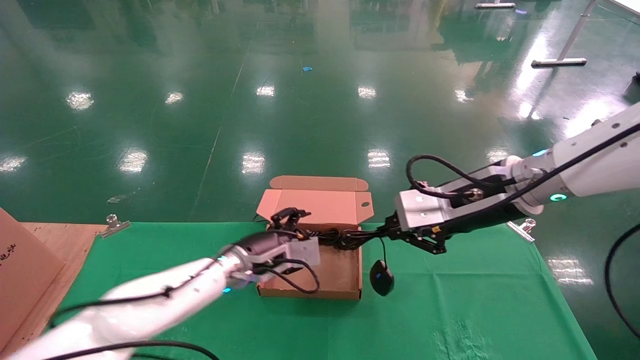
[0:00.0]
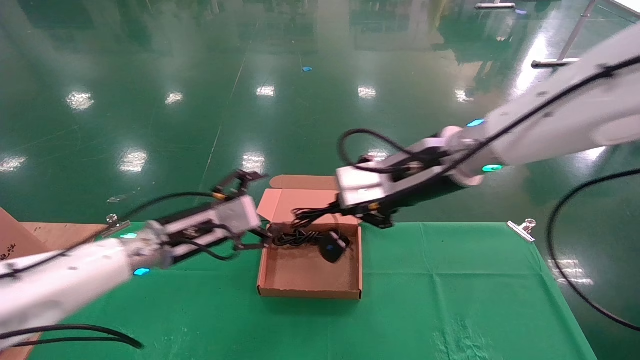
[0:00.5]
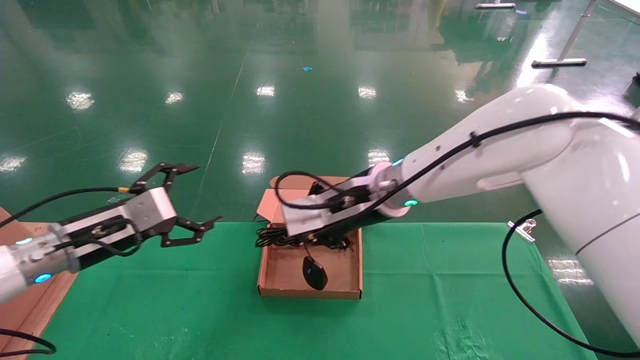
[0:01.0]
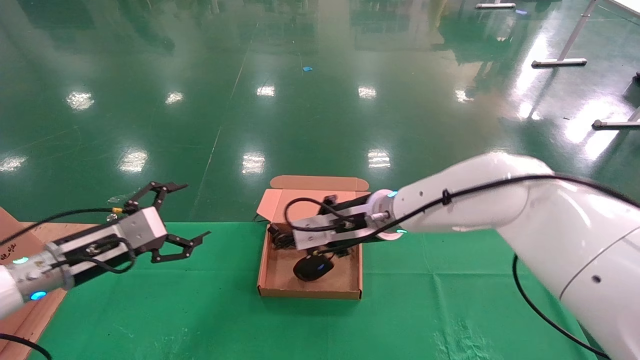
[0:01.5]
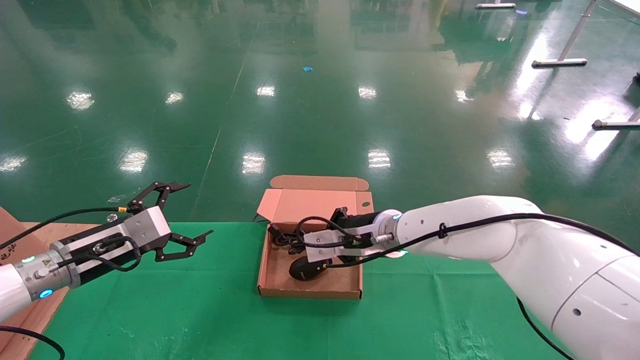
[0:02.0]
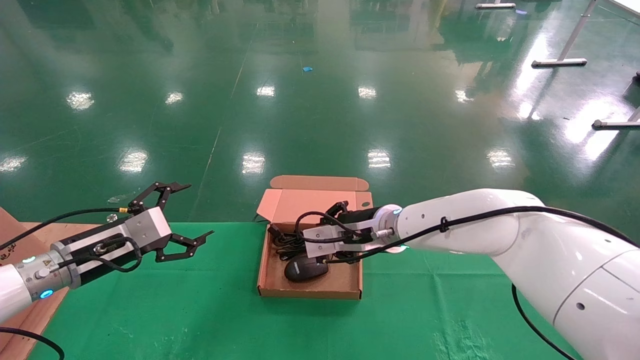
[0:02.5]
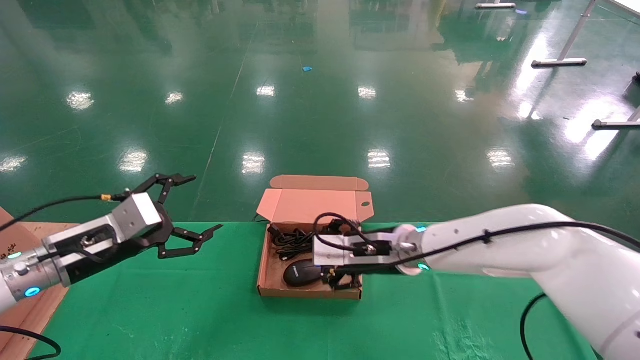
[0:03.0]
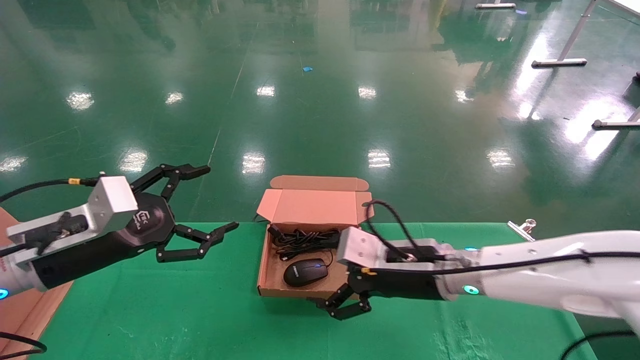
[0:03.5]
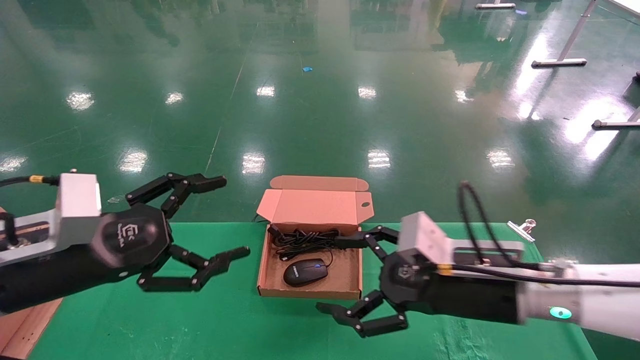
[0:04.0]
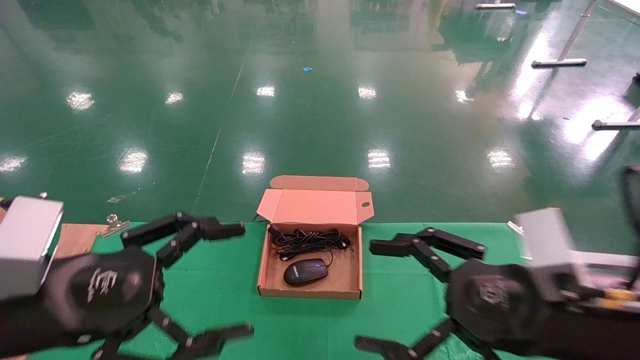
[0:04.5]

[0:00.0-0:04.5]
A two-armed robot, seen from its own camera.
Step, 0:00.0 to 0:02.5: Place the mouse and power cord into the box.
0:00.0 to 0:02.0: The right gripper is displaced to the left, downward and forward by approximately 20 cm. Meanwhile the left gripper is displaced to the left by roughly 20 cm, and opens its fingers.
0:02.0 to 0:04.5: Both grippers move backward and to the right, about 25 cm. The right gripper opens up.
